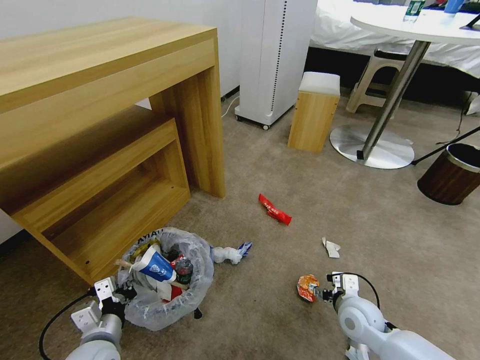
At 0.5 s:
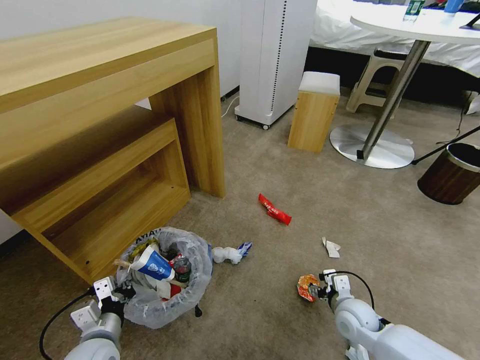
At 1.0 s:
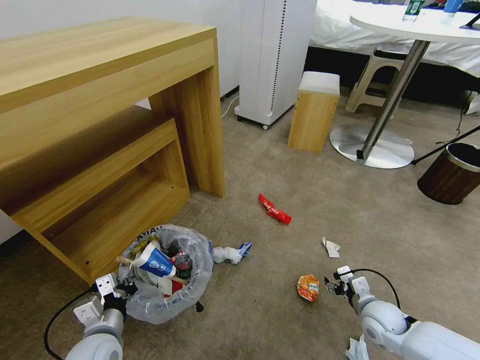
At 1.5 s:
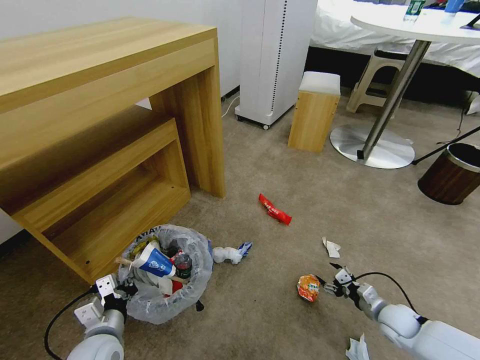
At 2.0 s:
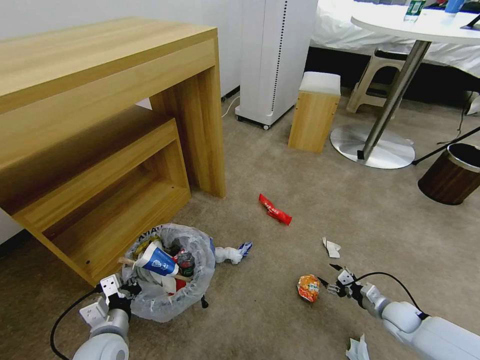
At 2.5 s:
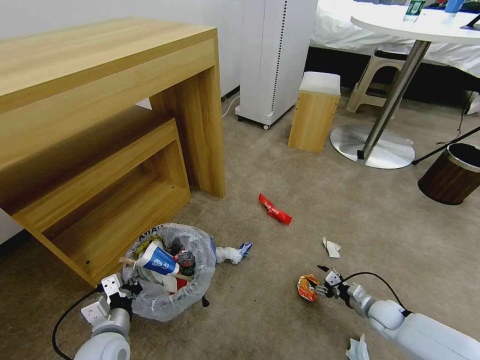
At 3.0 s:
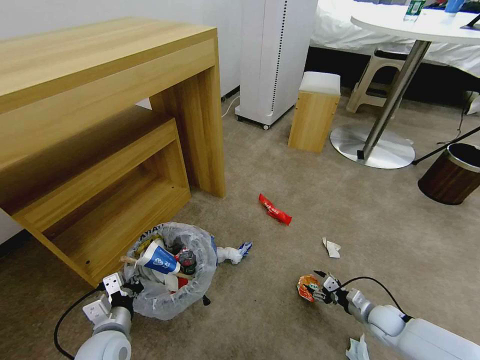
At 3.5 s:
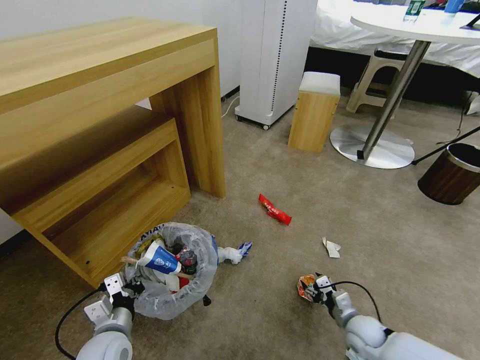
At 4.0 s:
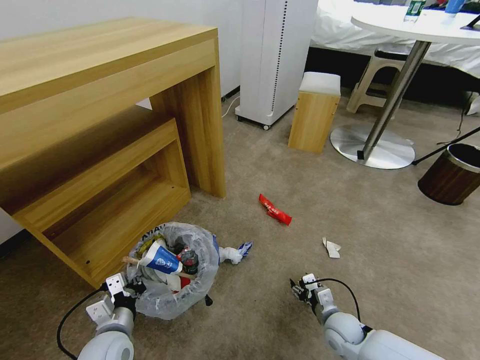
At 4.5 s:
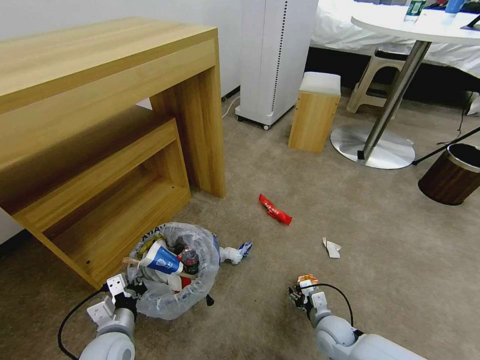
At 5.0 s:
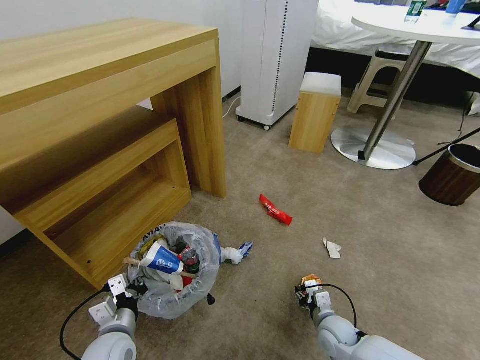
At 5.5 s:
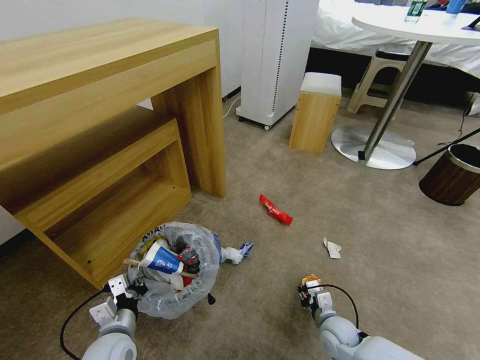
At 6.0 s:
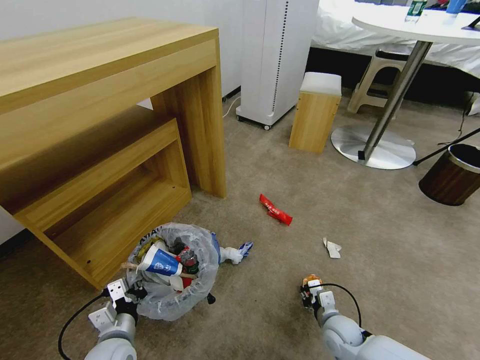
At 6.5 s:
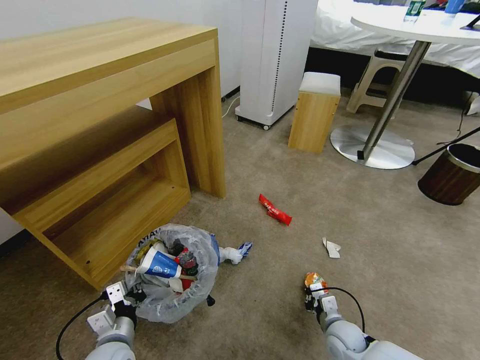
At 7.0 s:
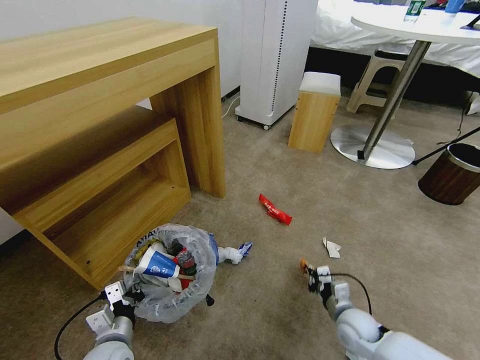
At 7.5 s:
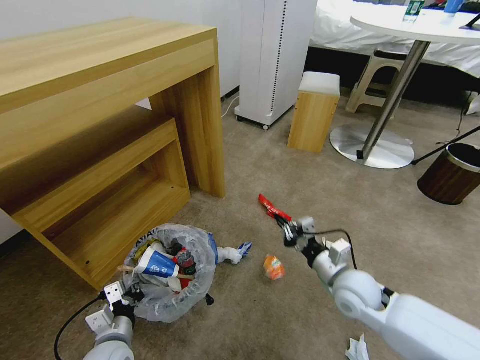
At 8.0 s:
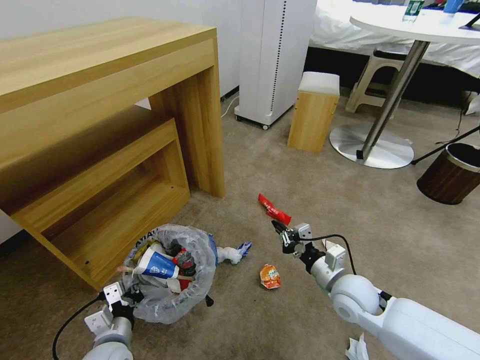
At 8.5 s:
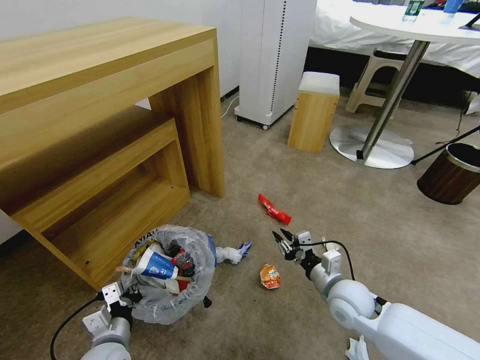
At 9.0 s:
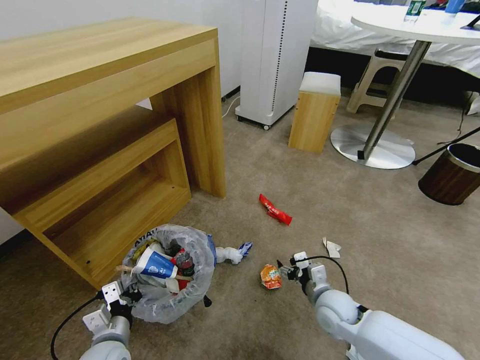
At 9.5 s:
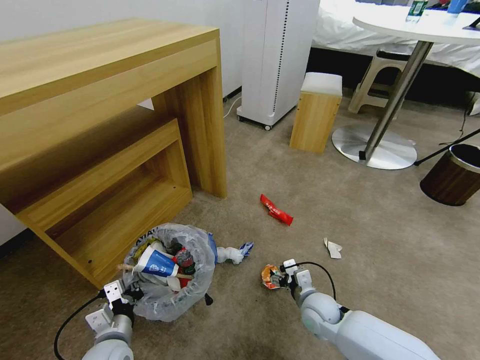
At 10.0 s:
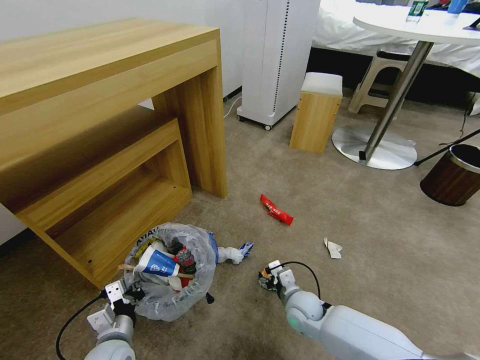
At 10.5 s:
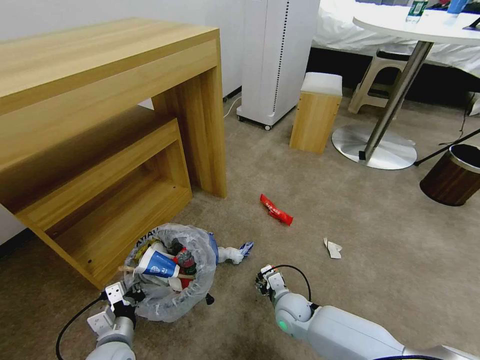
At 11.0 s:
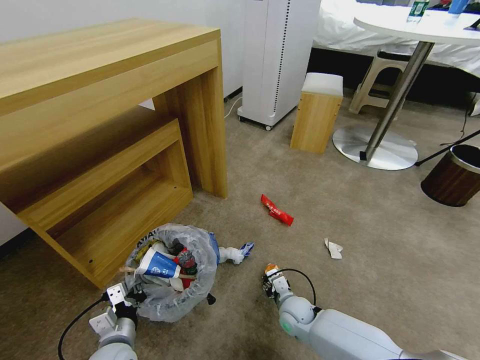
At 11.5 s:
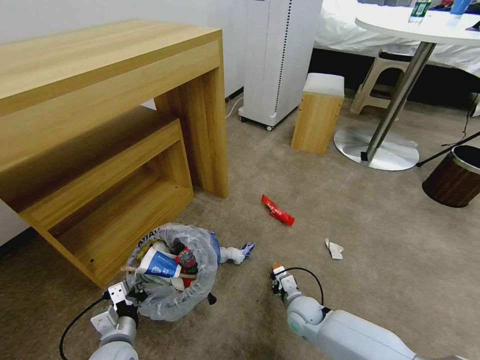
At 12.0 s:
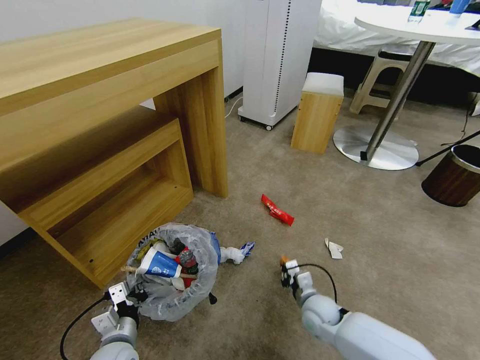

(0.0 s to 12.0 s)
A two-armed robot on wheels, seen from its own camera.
Task of the whole recording: Pick up the trash bin and place the garbage on the floor into it.
0.0 s - 2.0 s: The right gripper goes roughly 20 cm to the right and downward.
2.0 s - 4.0 s: The right gripper heads to the left, covering approximately 20 cm.
4.0 s - 6.0 s: The grippers stay close to where they were, moving slightly.
6.0 s - 8.0 s: The right gripper moves upward, some 15 cm, and closes.
8.0 s - 10.0 s: The right gripper moves downward and to the left, approximately 15 cm, and opens its fingers.
10.0 s - 12.0 s: The right gripper closes up.

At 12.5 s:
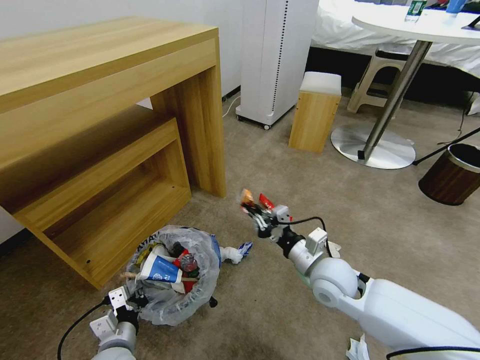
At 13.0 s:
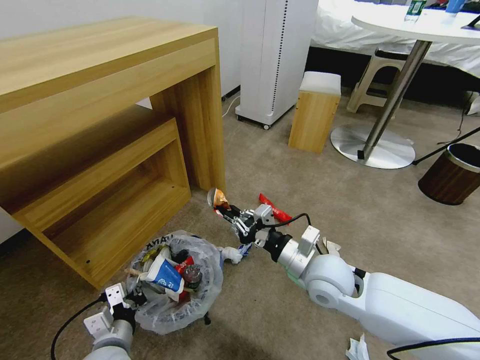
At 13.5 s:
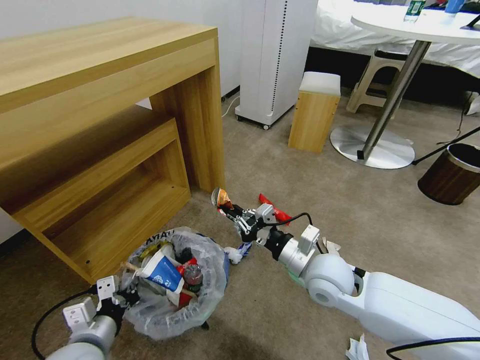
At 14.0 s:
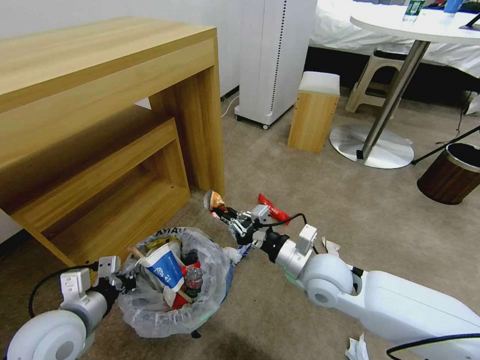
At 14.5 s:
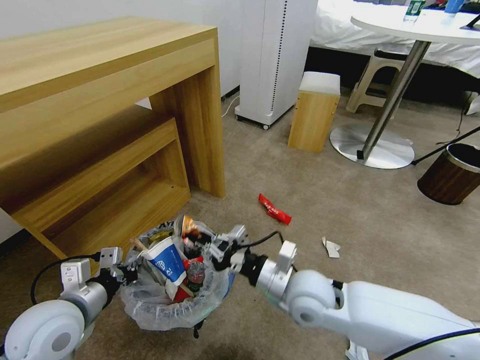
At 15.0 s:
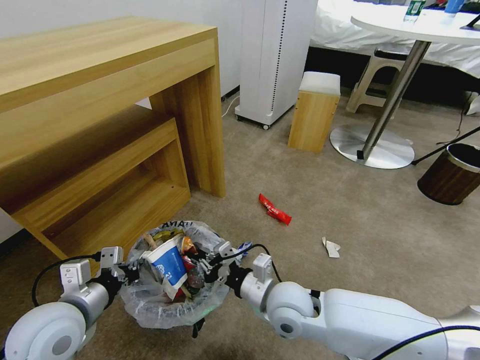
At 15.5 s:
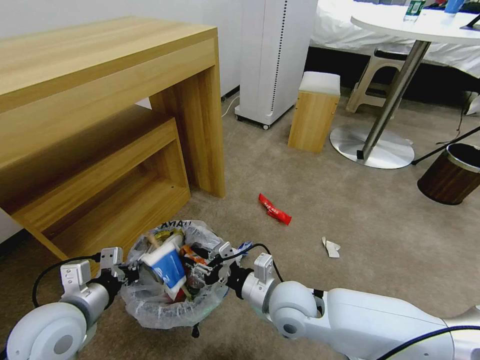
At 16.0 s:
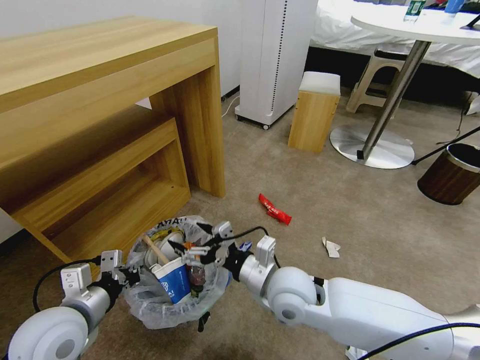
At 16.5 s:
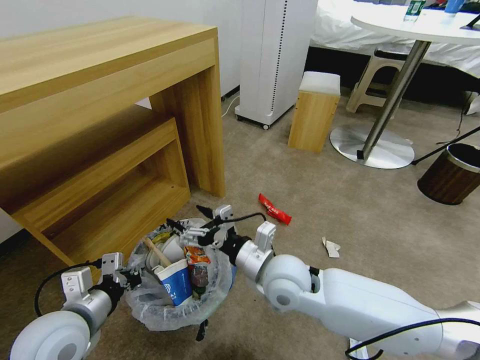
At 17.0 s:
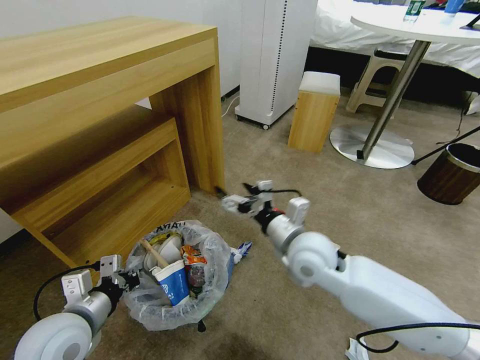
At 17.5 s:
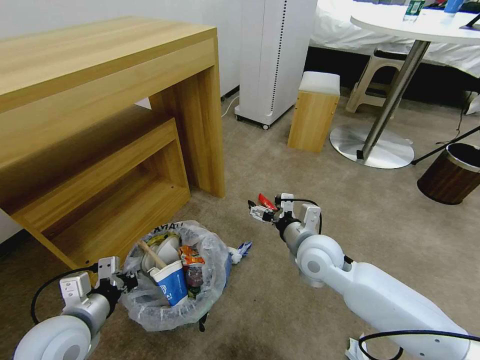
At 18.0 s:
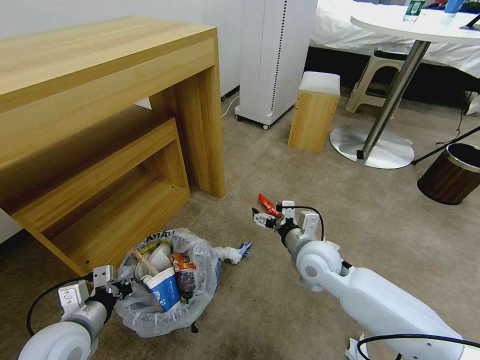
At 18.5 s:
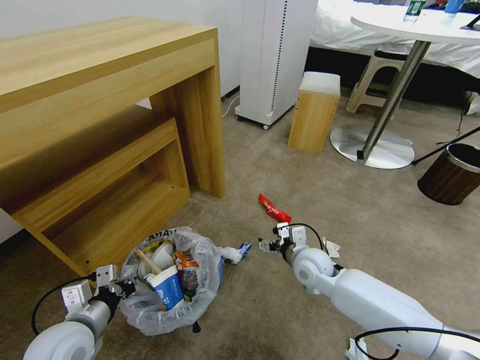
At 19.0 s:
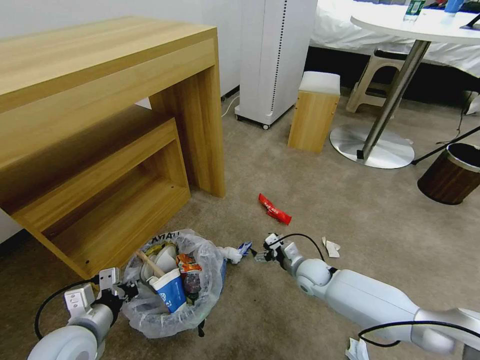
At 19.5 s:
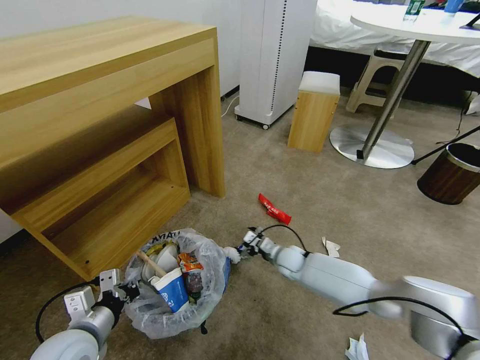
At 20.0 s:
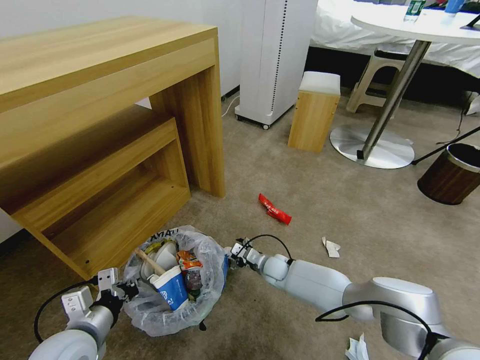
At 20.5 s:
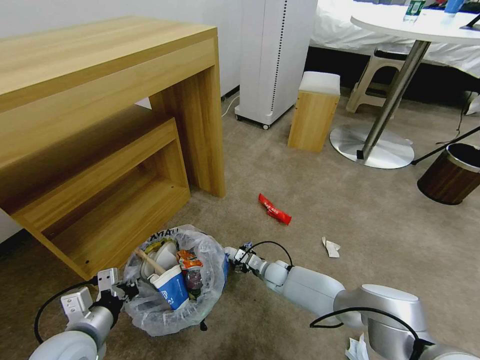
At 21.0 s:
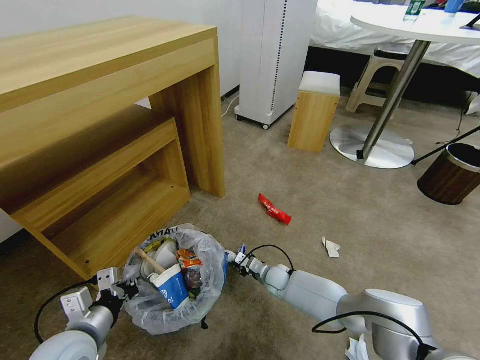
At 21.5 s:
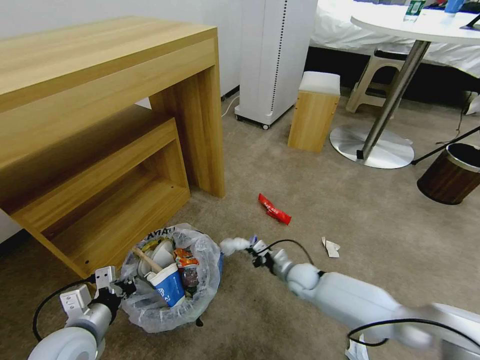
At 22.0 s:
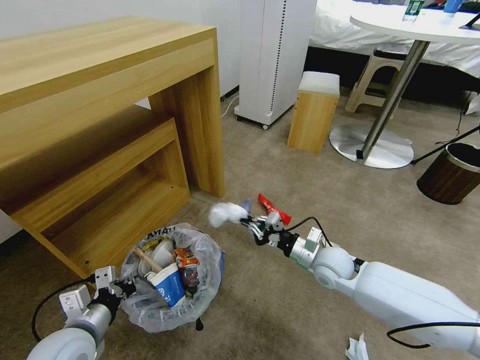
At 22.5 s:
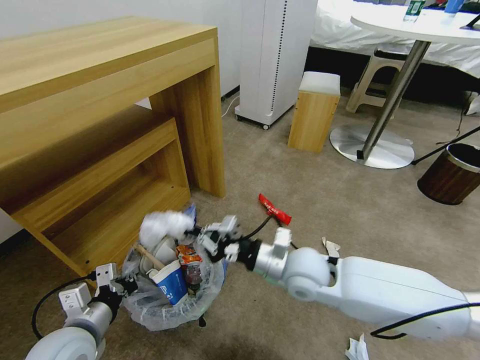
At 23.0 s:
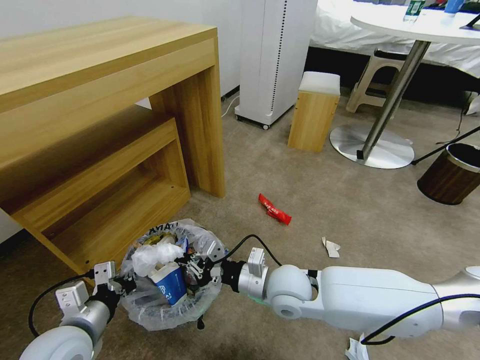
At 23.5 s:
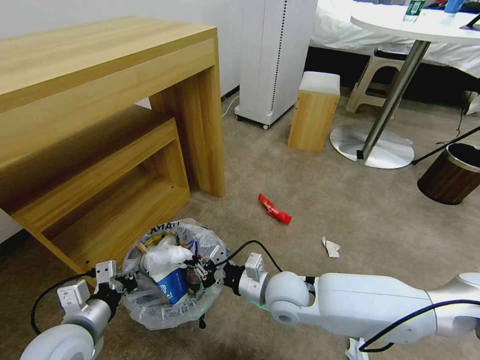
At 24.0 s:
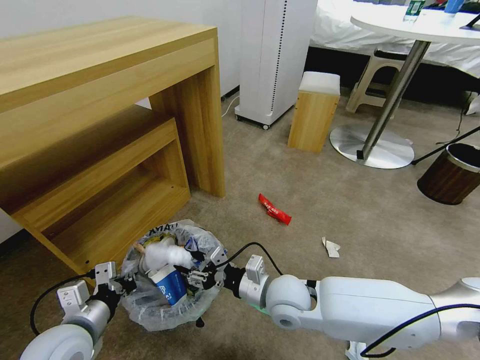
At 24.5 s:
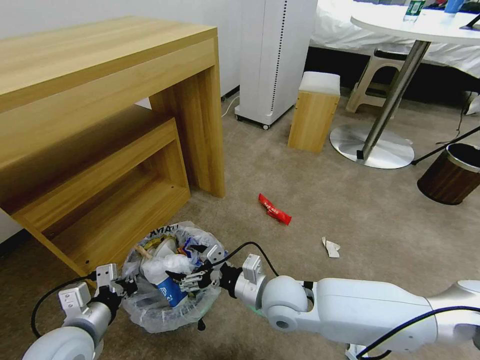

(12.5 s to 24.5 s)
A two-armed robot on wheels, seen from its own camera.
Task of the whole recording: Pick up the trash bin and place the garbage on the floor into it.
12.5 s - 14.5 s: The left gripper shifts about 15 cm upward; the right gripper travels to the left by about 5 cm.
14.5 s - 16.5 s: The right gripper shifts by approximately 5 cm, and opens up.
16.5 s - 18.5 s: The right gripper travels downward, to the right and forward by roughly 15 cm. Meanwhile the left gripper travels downward by some 5 cm.
18.5 s - 20.5 s: The right gripper is displaced downward by approximately 20 cm.
20.5 s - 22.5 s: The right gripper heads upward and backward, covering some 30 cm, and closes up.
22.5 s - 24.5 s: The right gripper moves approximately 10 cm, and opens its fingers.

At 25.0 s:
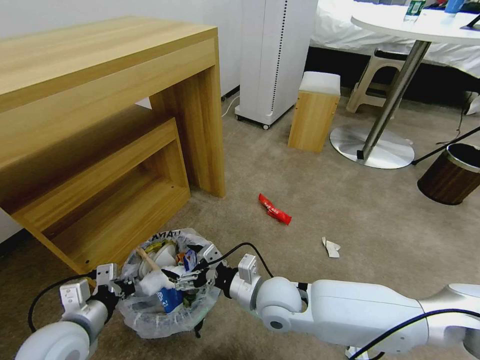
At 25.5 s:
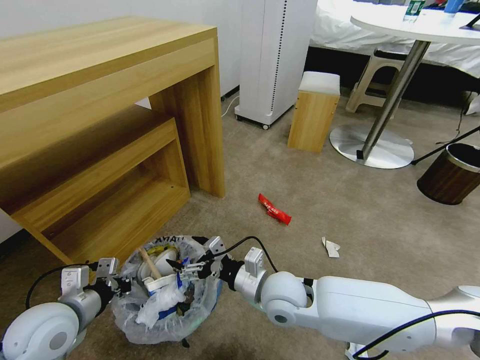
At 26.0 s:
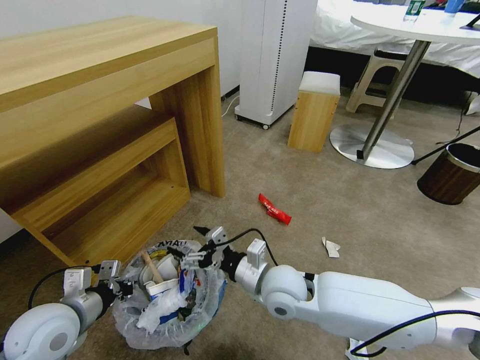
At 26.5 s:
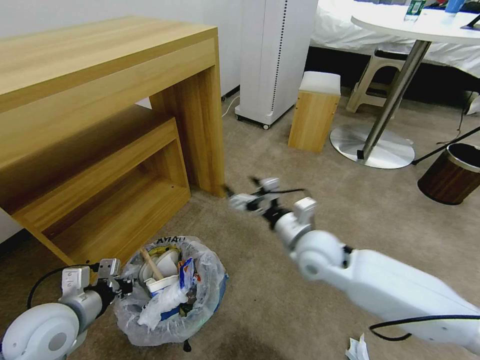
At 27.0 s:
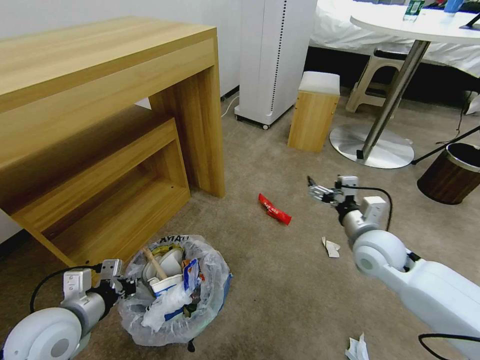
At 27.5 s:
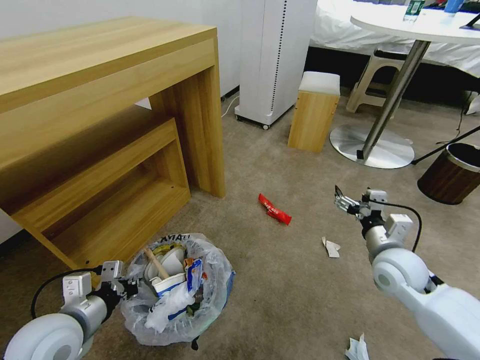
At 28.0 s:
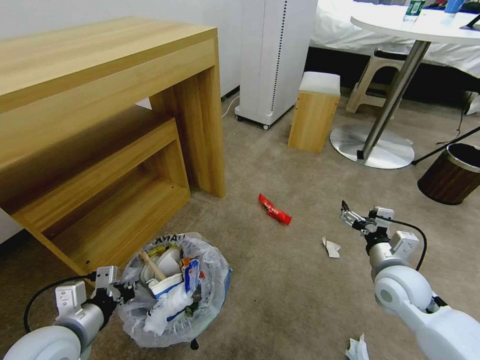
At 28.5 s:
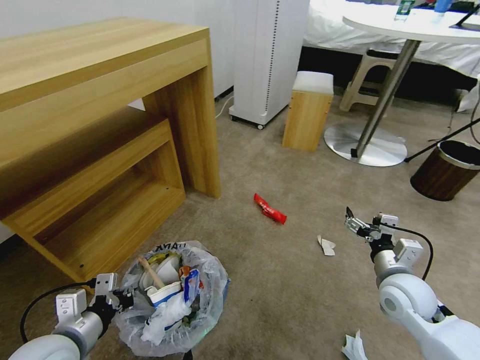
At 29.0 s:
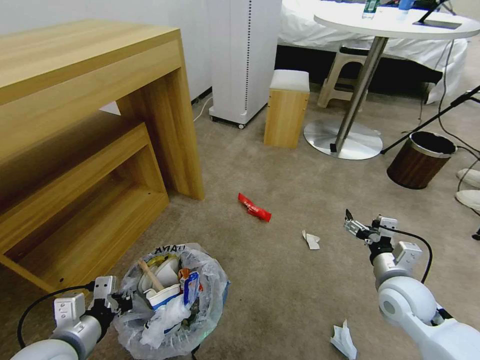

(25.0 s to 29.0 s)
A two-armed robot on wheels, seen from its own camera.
Task of the whole recording: Pick up the trash bin and place the garbage on the floor into it.
25.0 s - 27.0 s: The right gripper shifts approximately 20 cm to the right.
27.0 s - 29.0 s: The right gripper travels backward, downward and to the right by approximately 10 cm.
